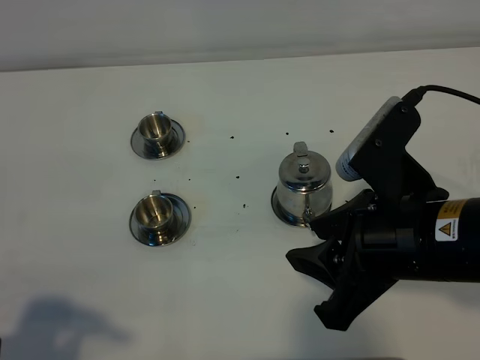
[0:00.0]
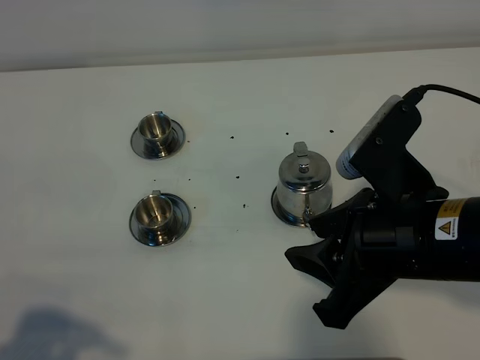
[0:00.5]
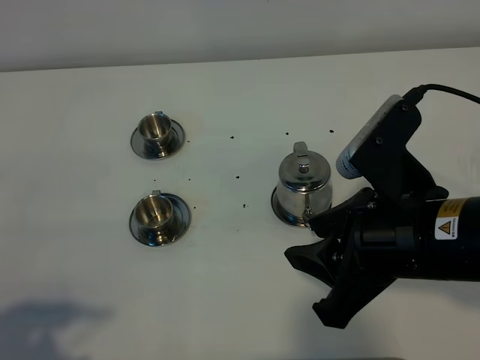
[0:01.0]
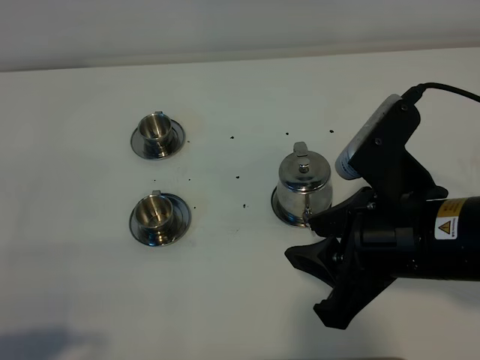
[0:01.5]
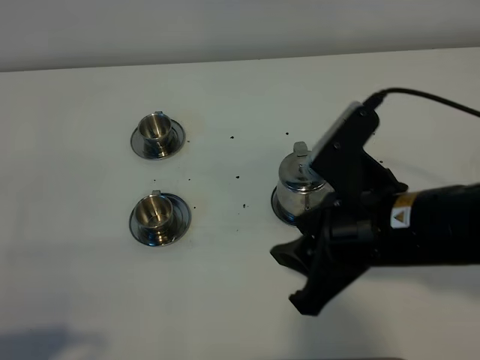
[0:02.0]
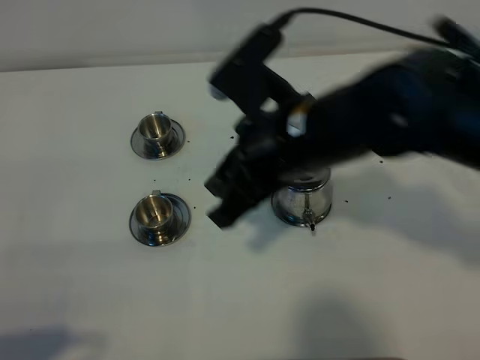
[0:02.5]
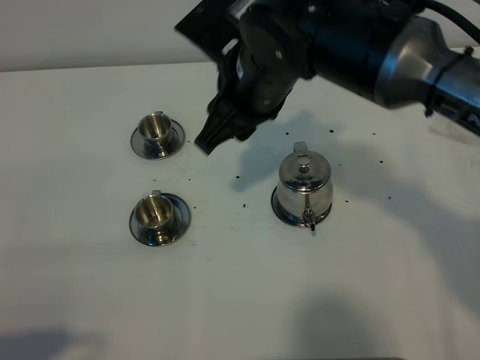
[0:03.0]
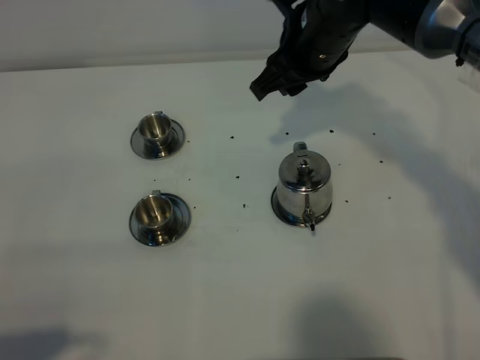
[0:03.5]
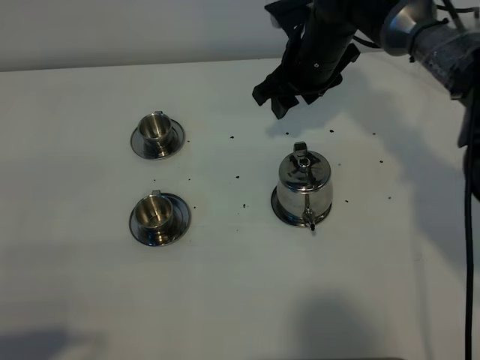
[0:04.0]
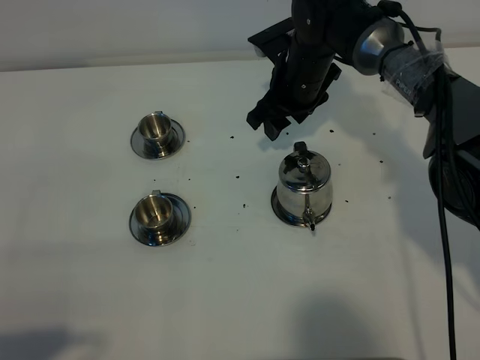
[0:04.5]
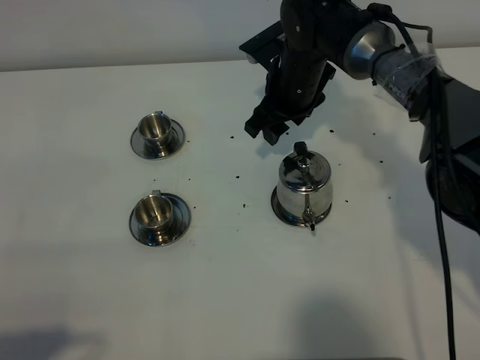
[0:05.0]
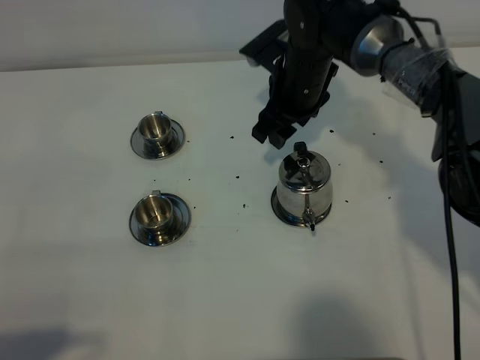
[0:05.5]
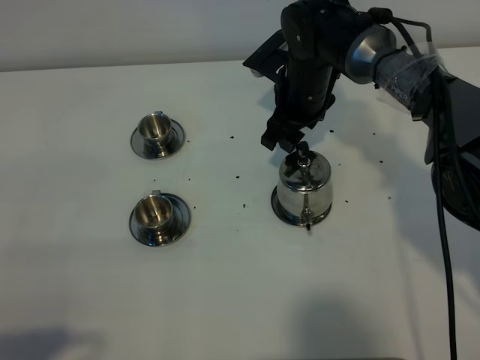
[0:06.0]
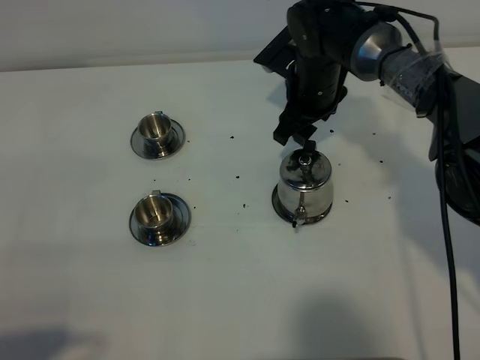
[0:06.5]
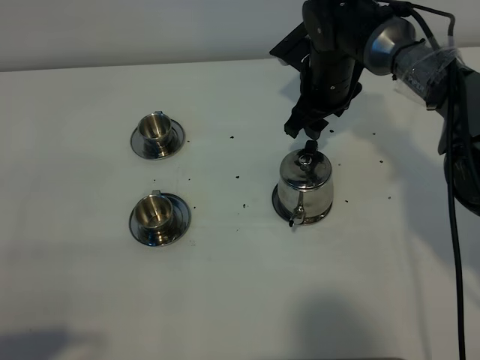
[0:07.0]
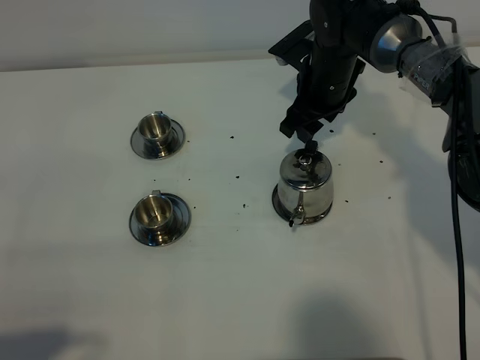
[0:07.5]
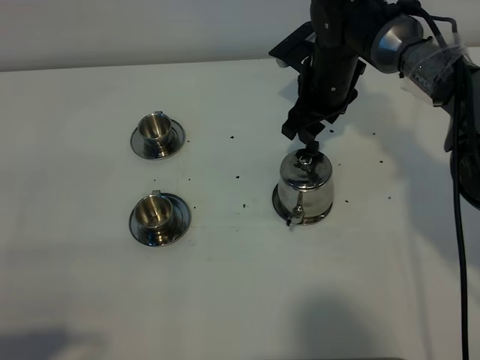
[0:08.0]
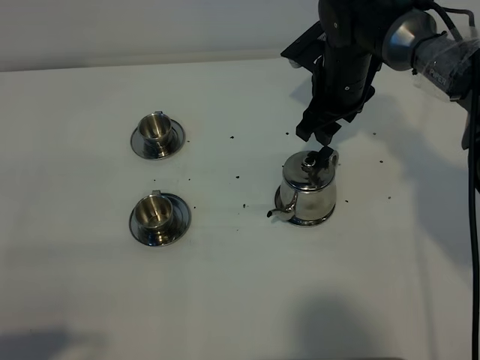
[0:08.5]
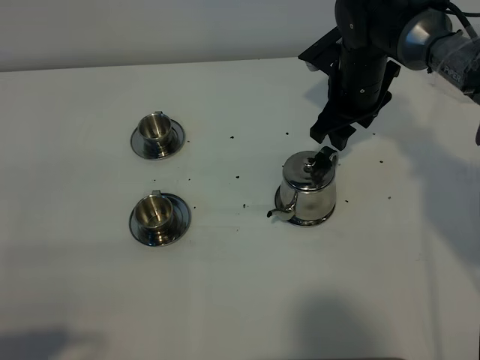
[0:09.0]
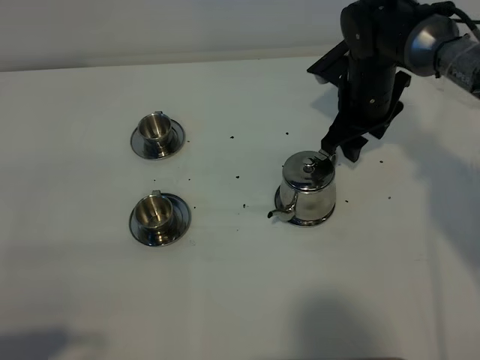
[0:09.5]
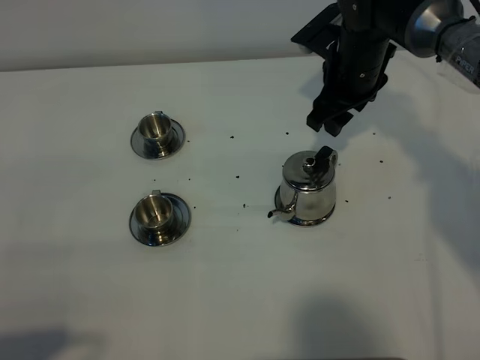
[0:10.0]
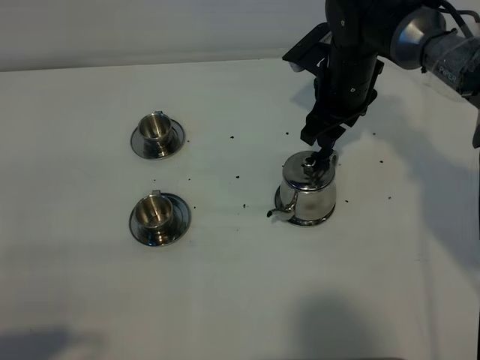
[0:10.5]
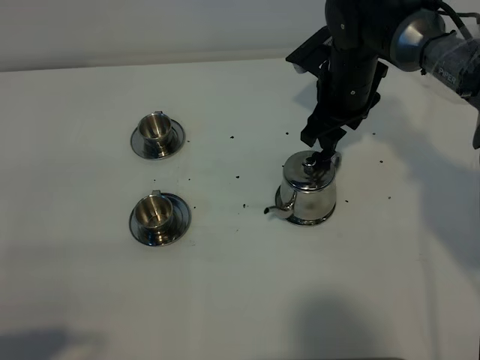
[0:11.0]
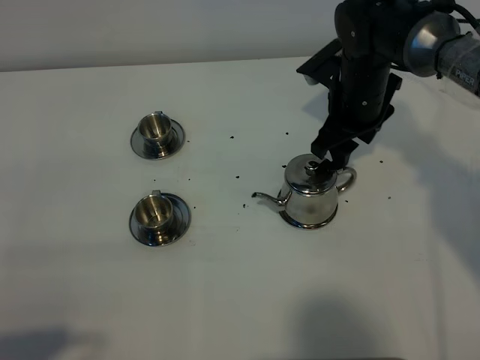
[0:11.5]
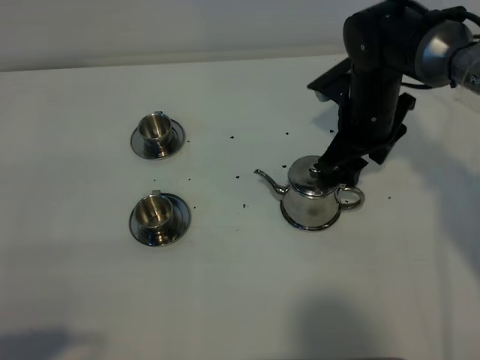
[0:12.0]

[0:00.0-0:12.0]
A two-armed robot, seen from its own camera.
Task of the whole recording: grasp the stainless steel teapot and pour the tea into the two stainless steel teacups one by one, put the stainless steel teapot back in its original place.
0:02.0 to 0:04.0: The right gripper moves forward, approximately 30 cm.
0:06.0 to 0:08.0: The grippers move only a little.
0:08.0 to 0:10.0: There are only small adjustments of the grippers.
0:10.0 to 0:12.0: The right gripper shifts by roughly 5 cm.

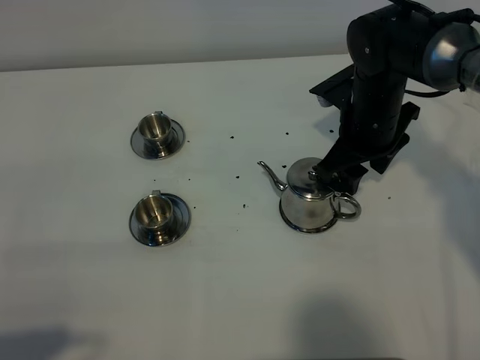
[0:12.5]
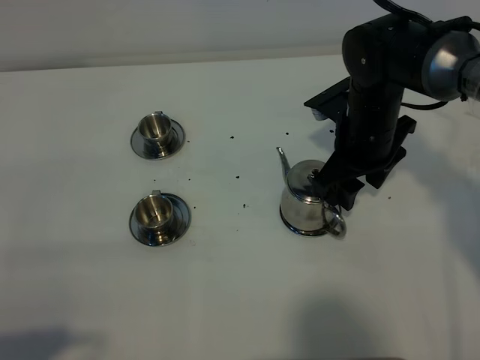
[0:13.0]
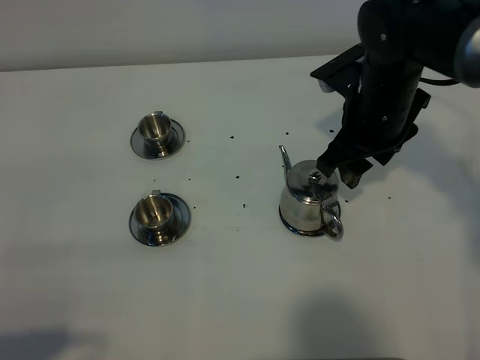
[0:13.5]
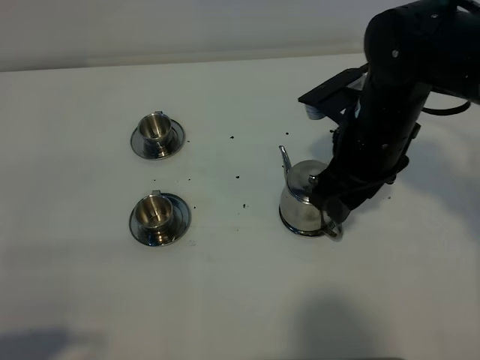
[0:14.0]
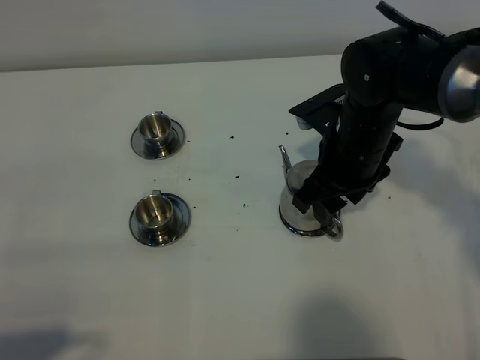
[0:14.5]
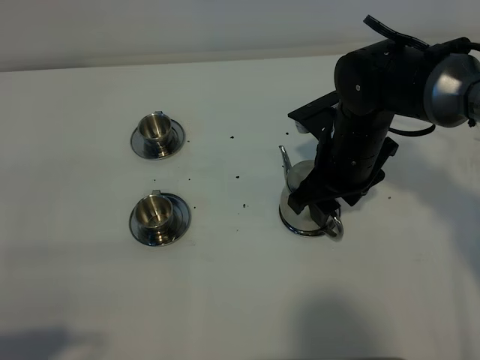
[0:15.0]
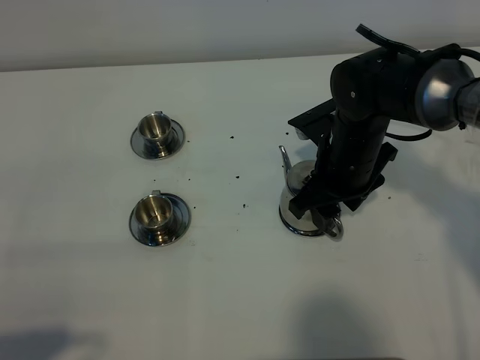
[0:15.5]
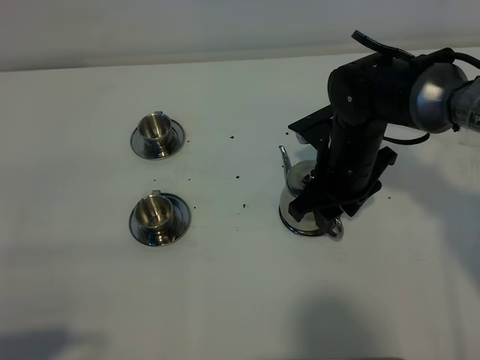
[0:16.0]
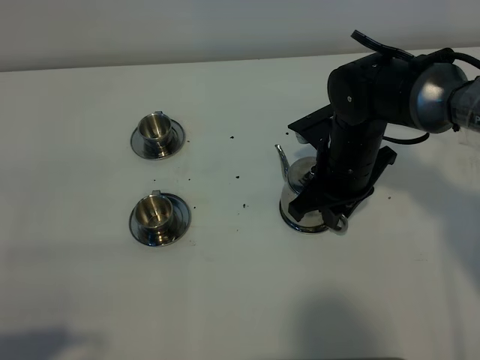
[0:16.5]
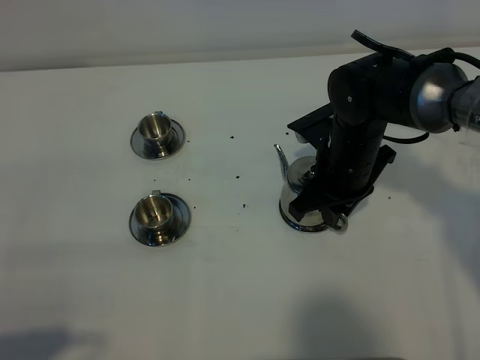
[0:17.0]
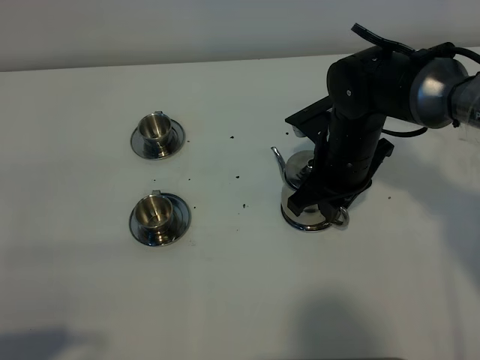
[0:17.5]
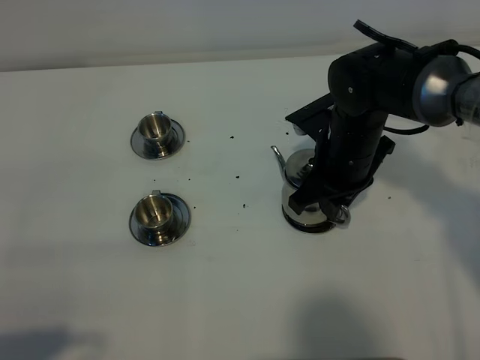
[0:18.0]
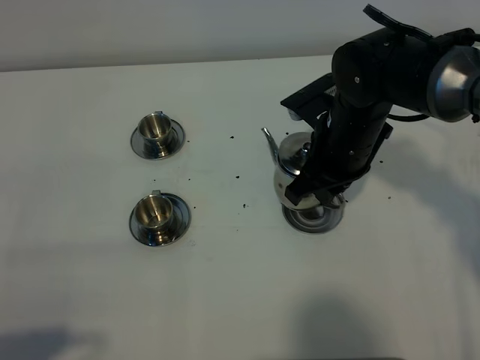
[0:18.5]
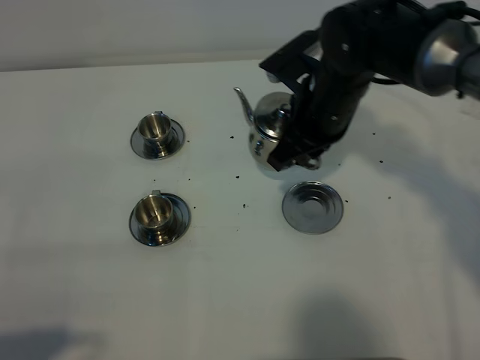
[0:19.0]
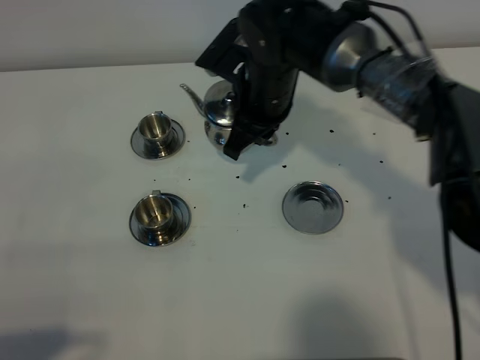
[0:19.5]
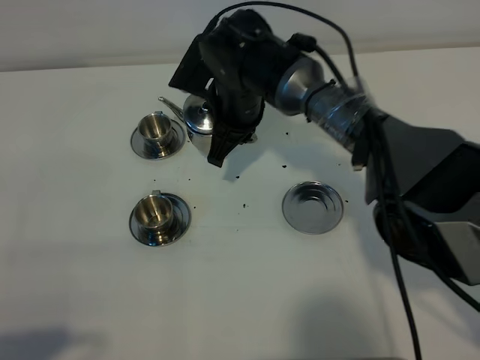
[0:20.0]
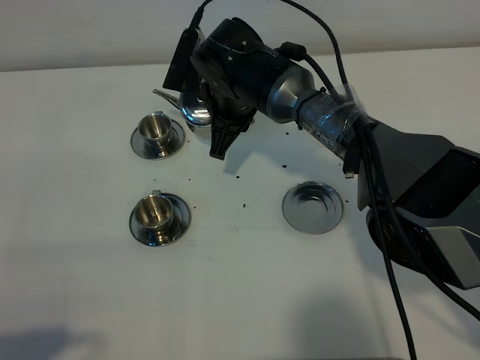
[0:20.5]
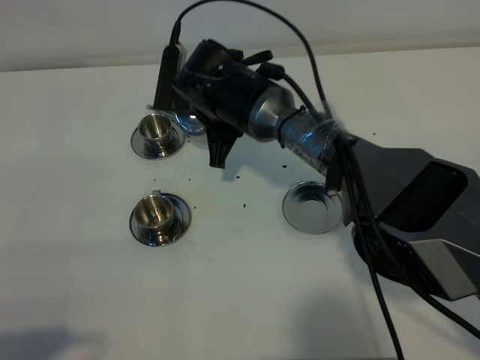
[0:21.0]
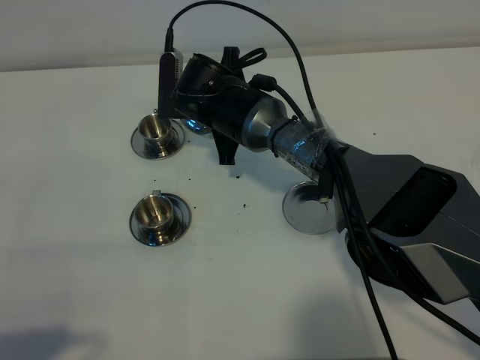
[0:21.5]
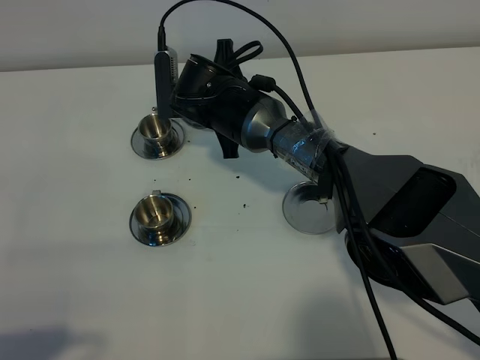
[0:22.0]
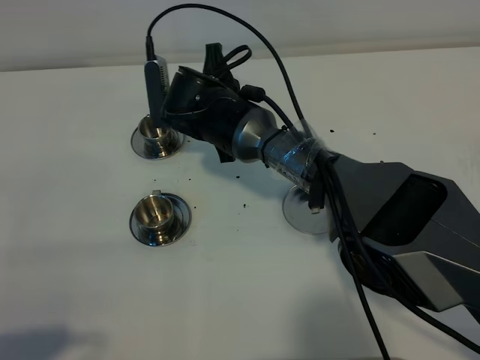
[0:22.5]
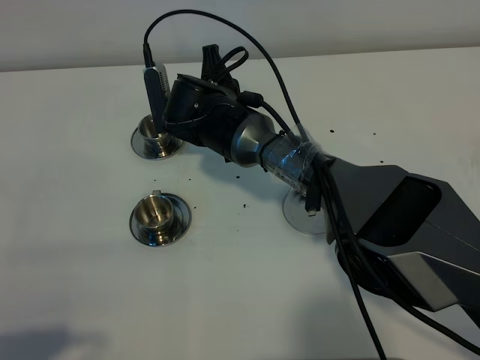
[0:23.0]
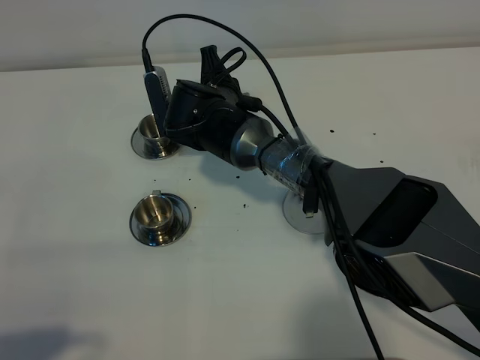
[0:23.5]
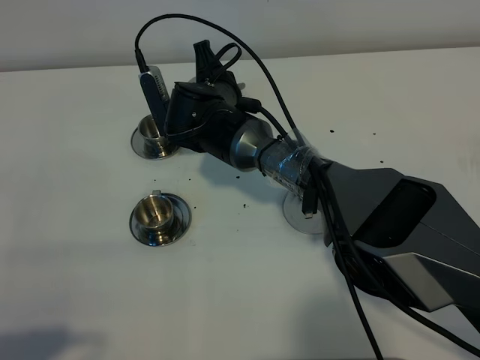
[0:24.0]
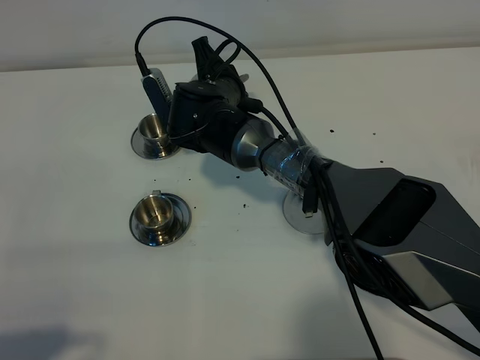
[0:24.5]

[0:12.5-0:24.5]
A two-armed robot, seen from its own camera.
Task of the whole recording: grasp the stainless steel teapot and pour the tea into the two stainless steel teacups one by one, put the stainless steel teapot back in its original place.
Step, 0:12.5 to 0:18.0: Pick up the teapot with the right gripper.
0:12.5 to 0:14.5: The right gripper moves backward, about 5 cm.
0:14.5 to 0:16.5: The right gripper closes.
0:16.5 to 0:18.5: The grippers stay close to where they were, moving slightly.
0:18.5 to 0:20.5: The right gripper moves to the left and forward, some 15 cm.

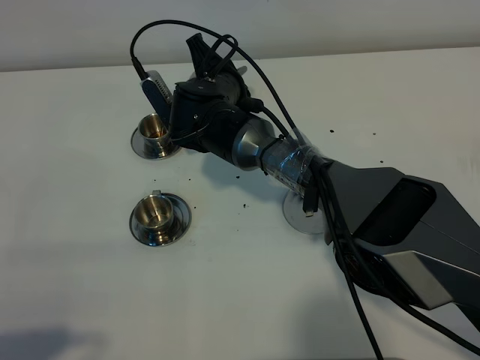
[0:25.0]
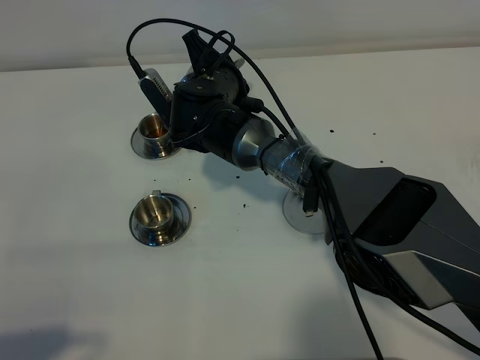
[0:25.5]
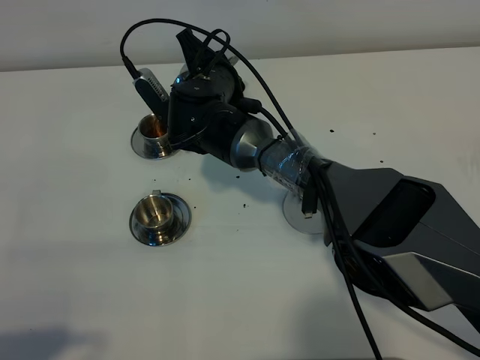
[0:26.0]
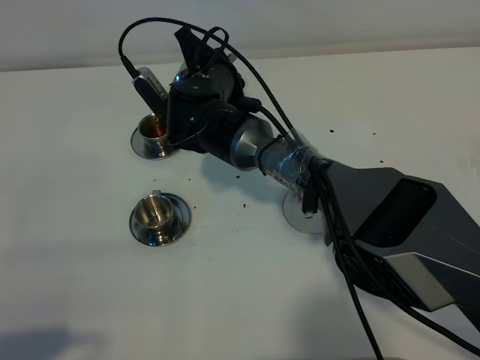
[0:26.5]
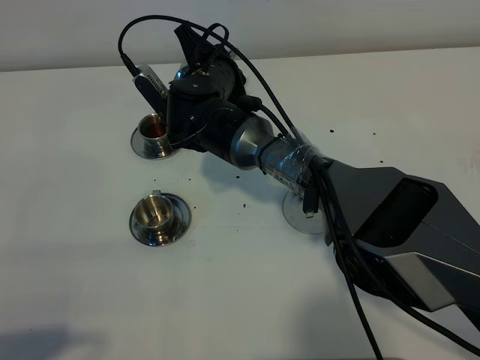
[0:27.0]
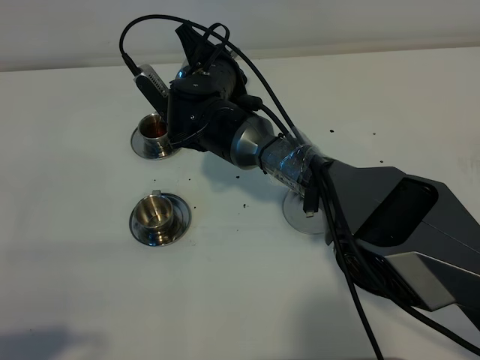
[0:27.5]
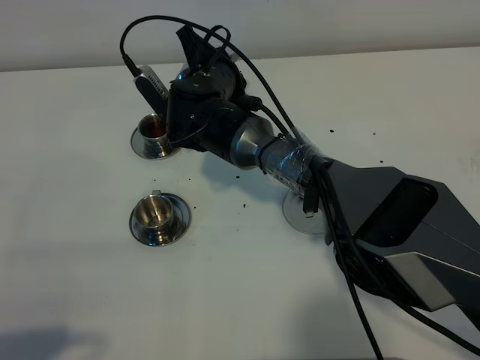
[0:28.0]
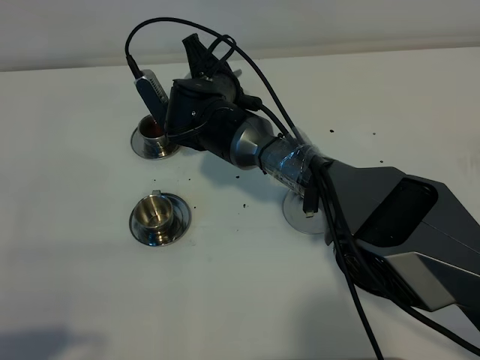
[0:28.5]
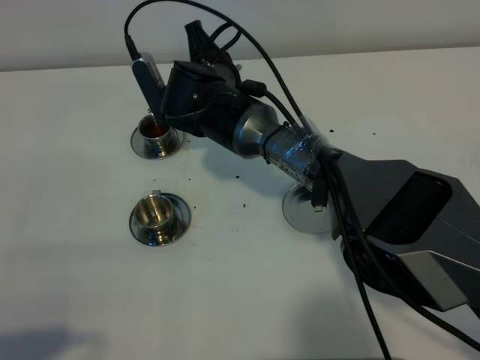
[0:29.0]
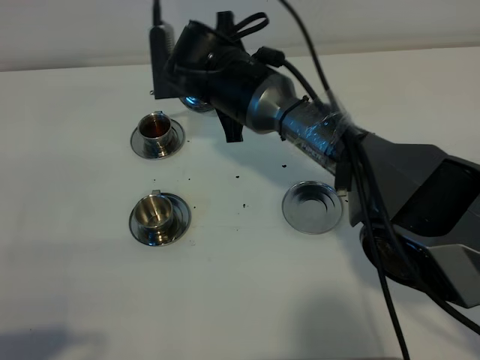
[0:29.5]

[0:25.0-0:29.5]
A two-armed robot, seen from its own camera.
Task of the whole recording: grasp the stainless steel teapot and pour the tea into the two stainless steel teacups one by one, put the stainless steel teapot back in its original place.
0:25.0 to 0:27.0: The grippers make only small movements.
0:27.0 to 0:29.5: The right gripper ends up some 5 cm from where it was.
